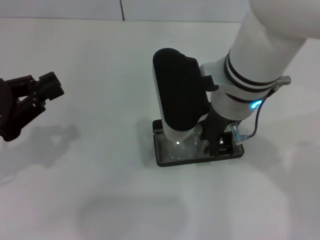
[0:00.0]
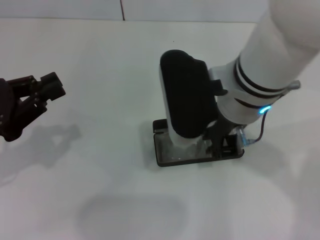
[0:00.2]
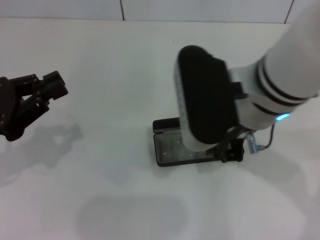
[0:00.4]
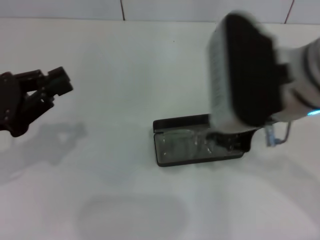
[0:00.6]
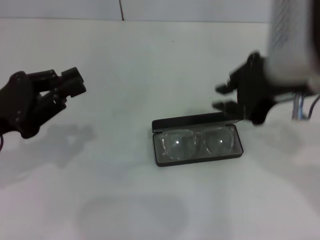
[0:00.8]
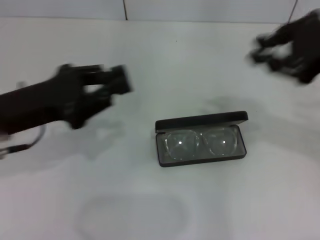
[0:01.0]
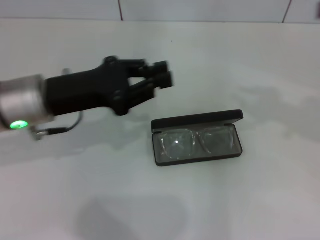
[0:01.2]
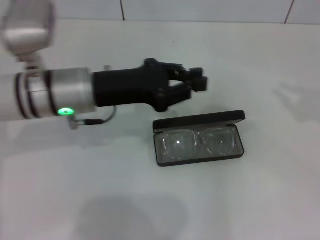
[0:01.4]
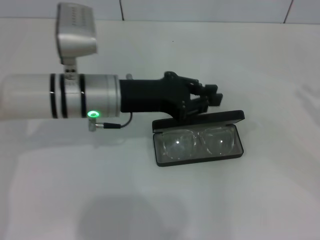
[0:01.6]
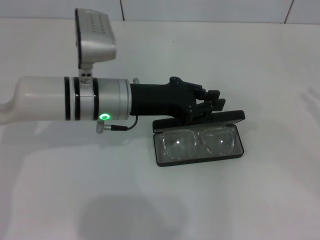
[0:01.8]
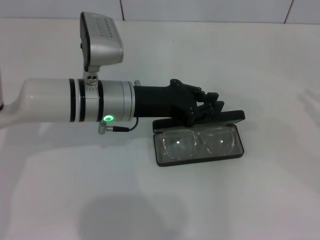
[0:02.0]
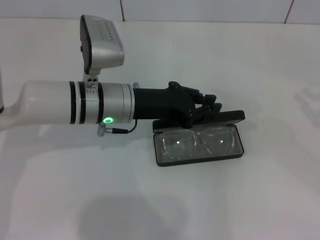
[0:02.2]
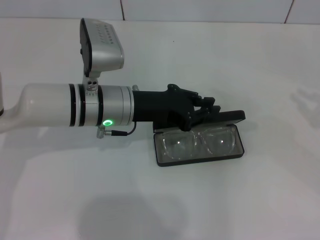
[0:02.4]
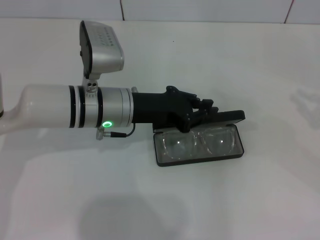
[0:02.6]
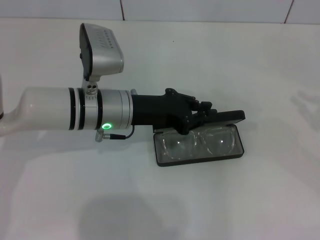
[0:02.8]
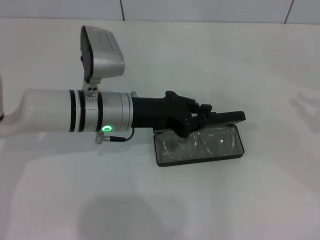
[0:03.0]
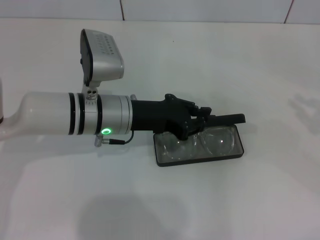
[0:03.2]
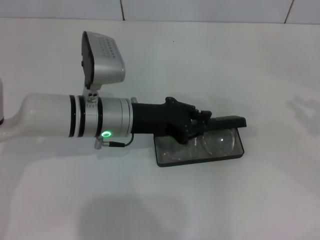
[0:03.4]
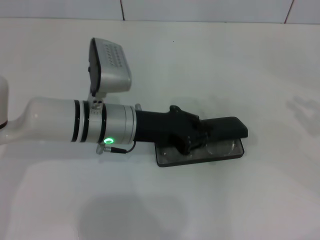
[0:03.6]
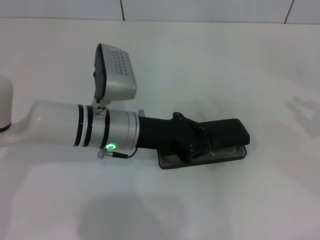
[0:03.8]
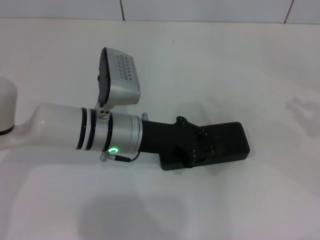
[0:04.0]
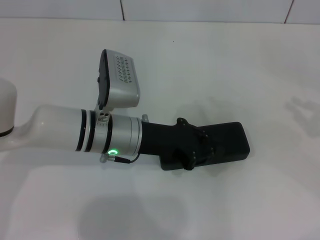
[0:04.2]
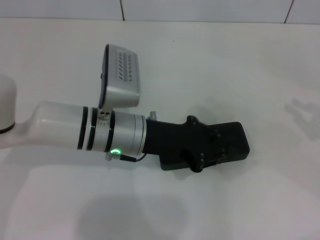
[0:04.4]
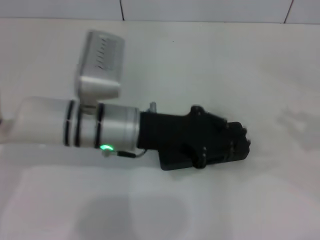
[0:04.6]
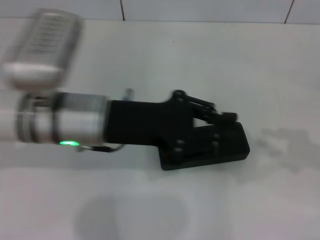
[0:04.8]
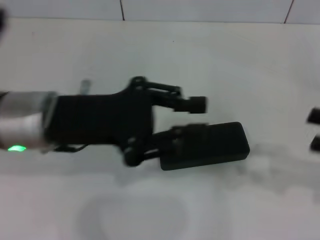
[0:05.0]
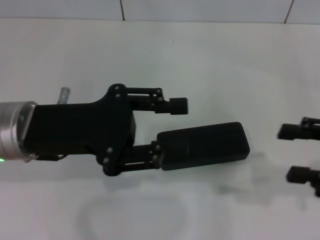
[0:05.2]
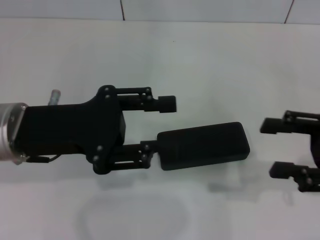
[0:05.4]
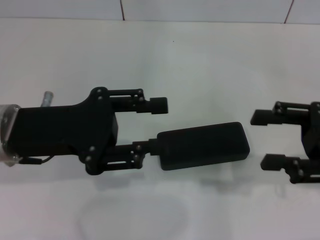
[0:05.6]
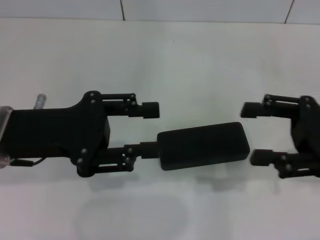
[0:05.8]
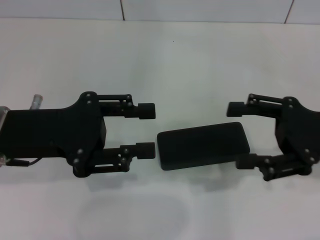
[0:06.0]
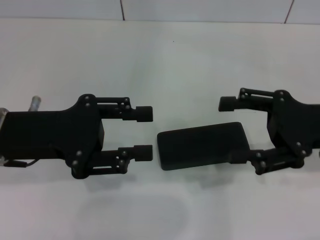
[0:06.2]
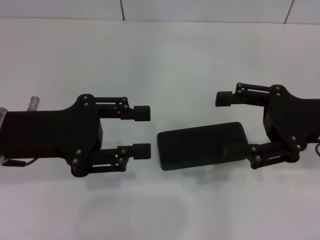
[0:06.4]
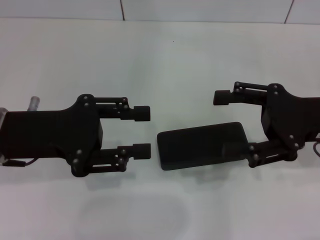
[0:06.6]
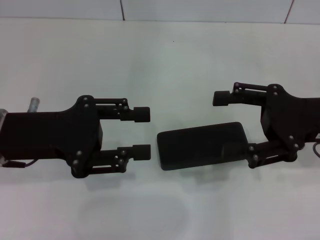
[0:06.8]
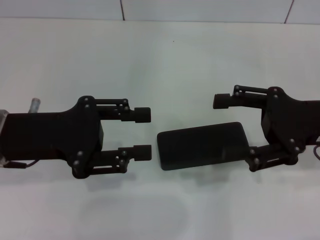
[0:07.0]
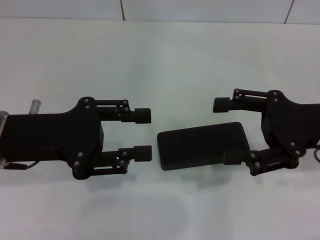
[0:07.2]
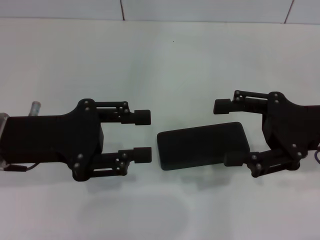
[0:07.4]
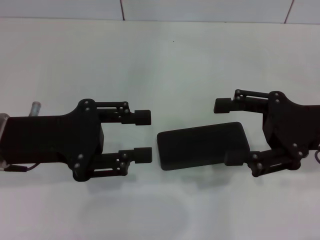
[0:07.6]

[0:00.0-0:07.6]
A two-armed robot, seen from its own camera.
Step, 0:00.6 to 0:04.2: Close the glasses case with your left hand.
0:00.0 to 0:01.6: The left gripper is displaced to the right and forward by roughly 20 cm; the right gripper moves to the right, about 35 cm.
0:01.6 to 0:04.6: The grippers stay close to where they were, moving slightly.
0:04.6 to 0:06.0: The two grippers go some 15 cm to the left. The left gripper opens its fingers, while the right gripper opens up.
0:06.0 to 0:07.6: There are only small adjustments of the grippers.
